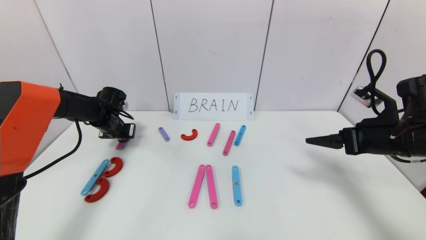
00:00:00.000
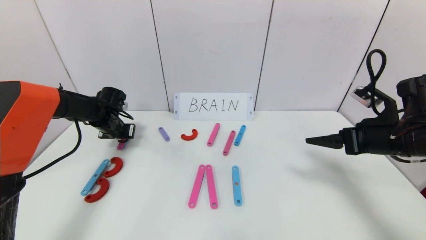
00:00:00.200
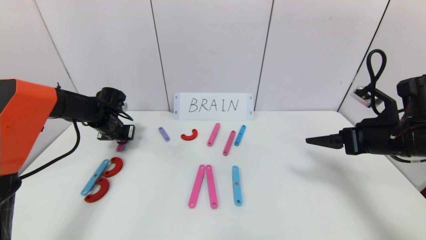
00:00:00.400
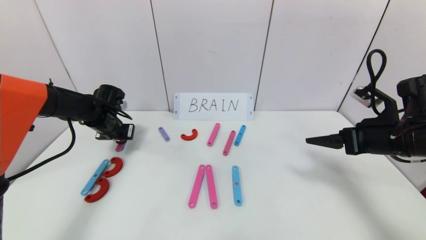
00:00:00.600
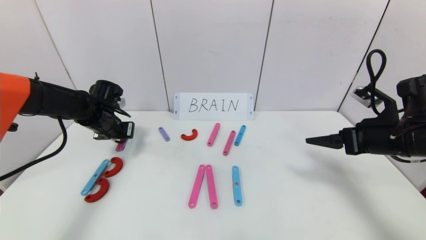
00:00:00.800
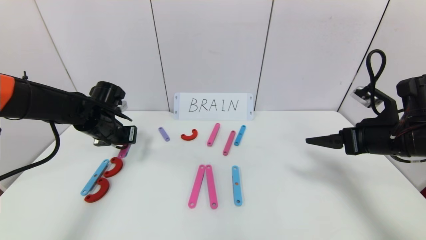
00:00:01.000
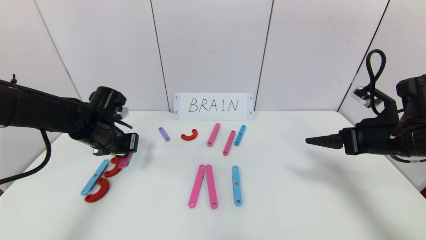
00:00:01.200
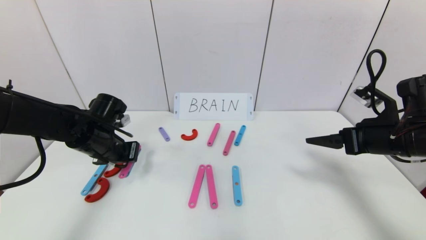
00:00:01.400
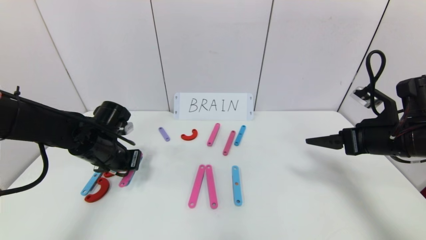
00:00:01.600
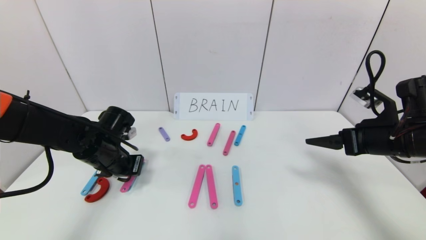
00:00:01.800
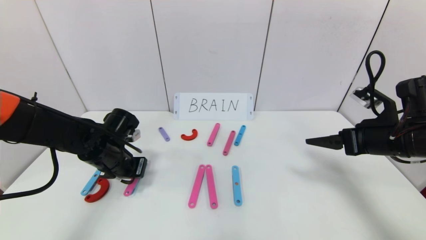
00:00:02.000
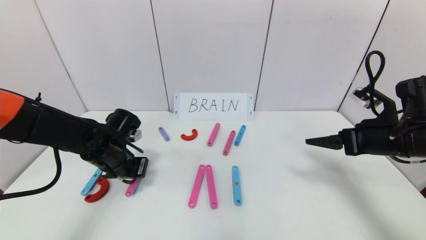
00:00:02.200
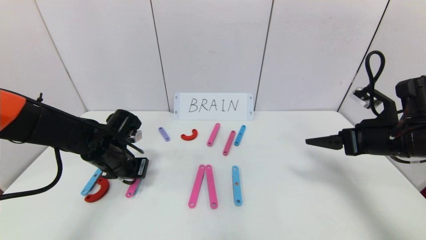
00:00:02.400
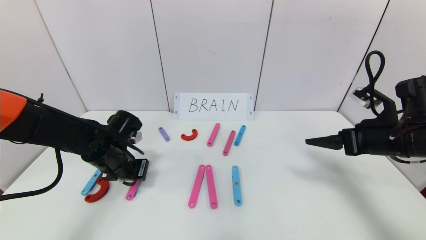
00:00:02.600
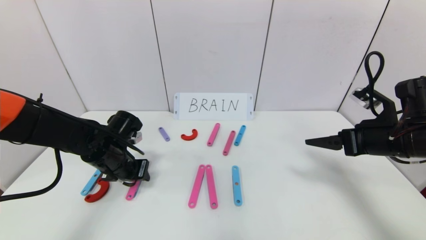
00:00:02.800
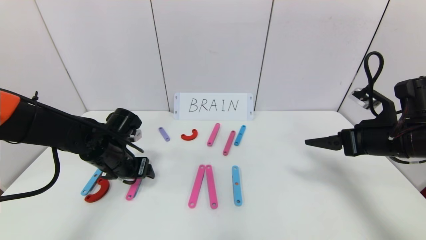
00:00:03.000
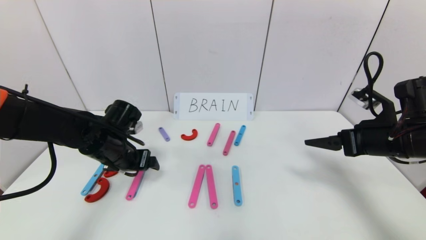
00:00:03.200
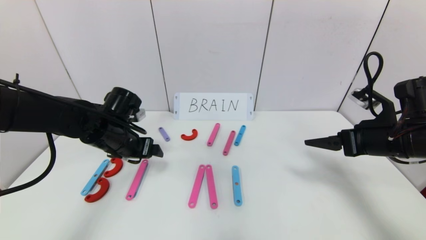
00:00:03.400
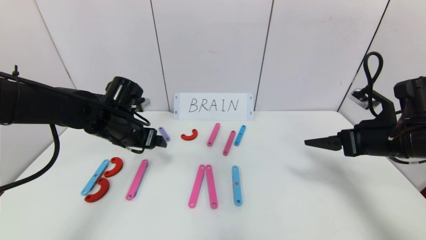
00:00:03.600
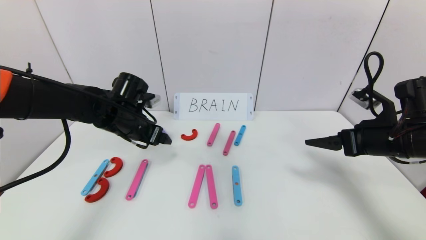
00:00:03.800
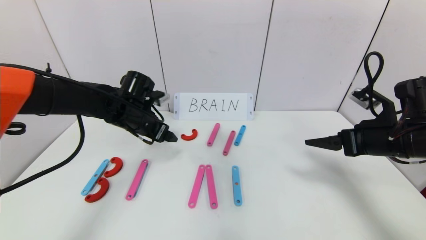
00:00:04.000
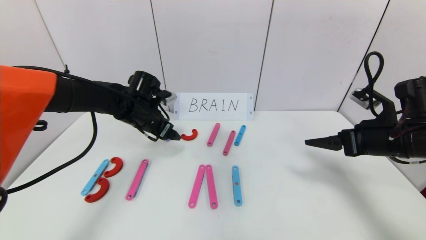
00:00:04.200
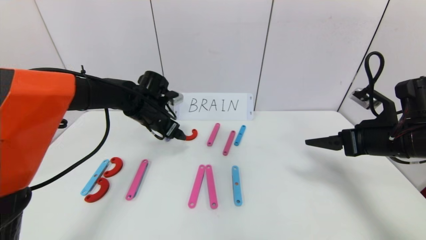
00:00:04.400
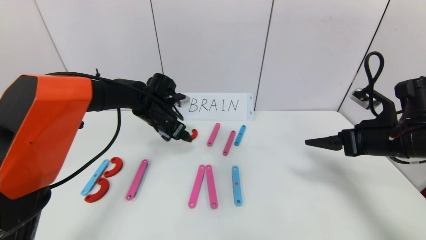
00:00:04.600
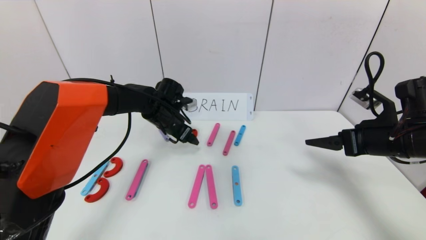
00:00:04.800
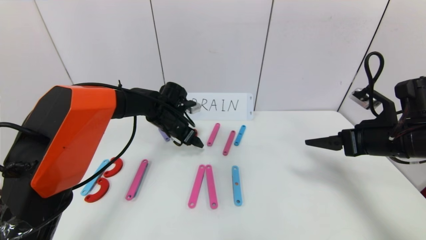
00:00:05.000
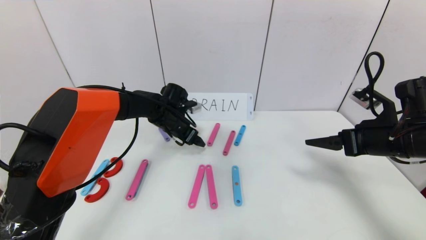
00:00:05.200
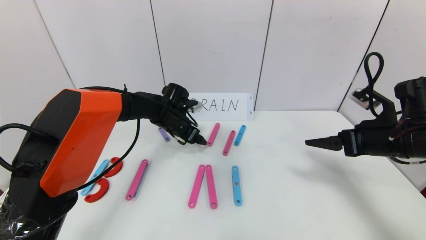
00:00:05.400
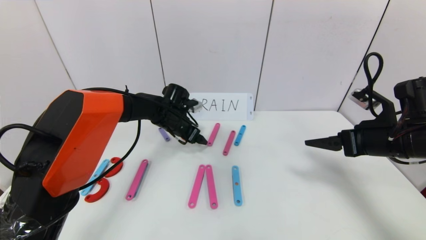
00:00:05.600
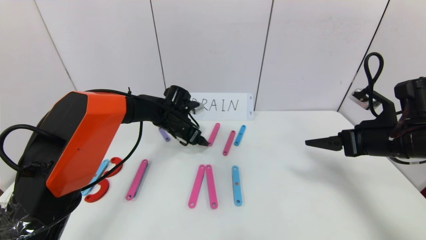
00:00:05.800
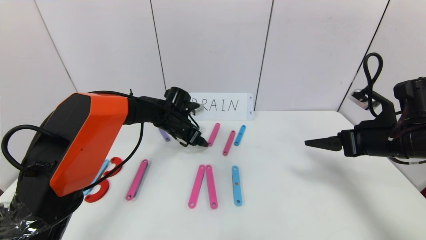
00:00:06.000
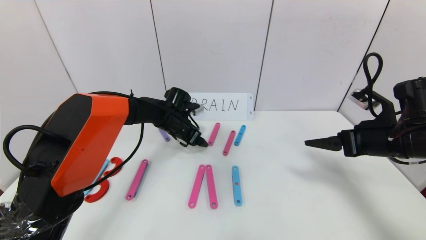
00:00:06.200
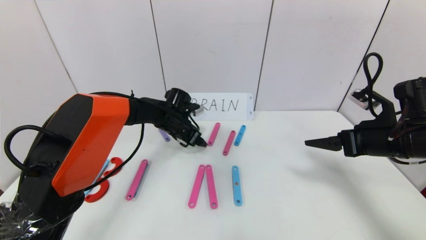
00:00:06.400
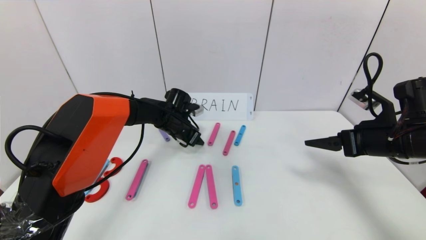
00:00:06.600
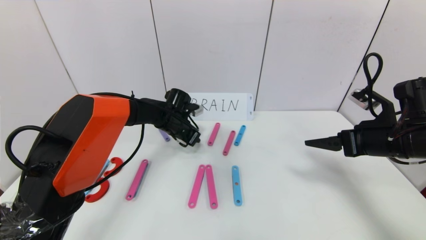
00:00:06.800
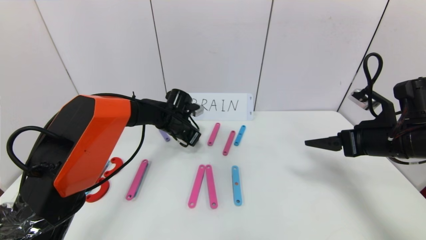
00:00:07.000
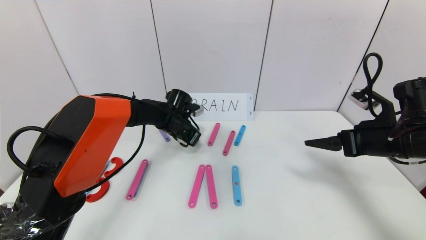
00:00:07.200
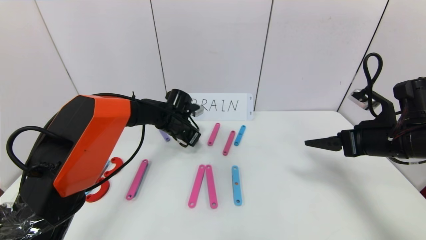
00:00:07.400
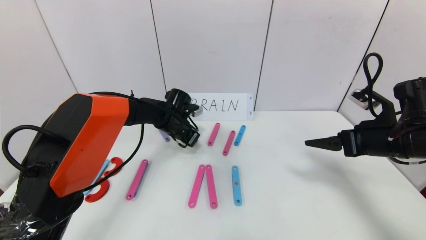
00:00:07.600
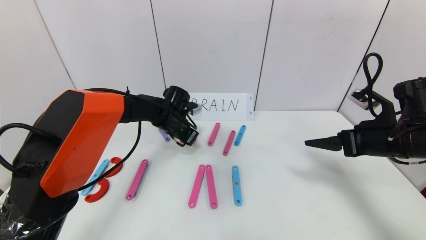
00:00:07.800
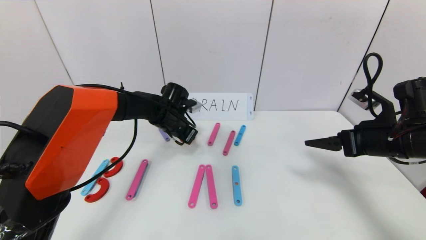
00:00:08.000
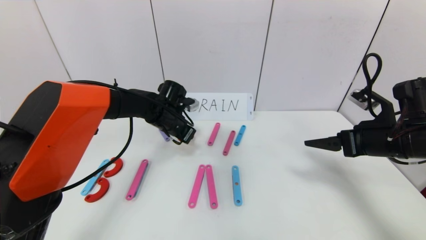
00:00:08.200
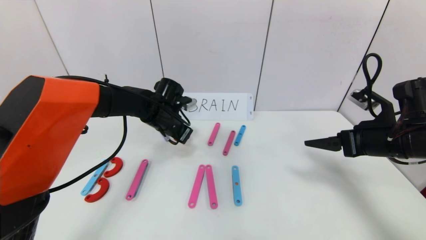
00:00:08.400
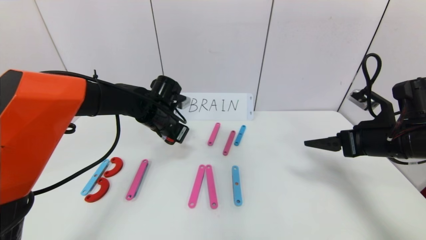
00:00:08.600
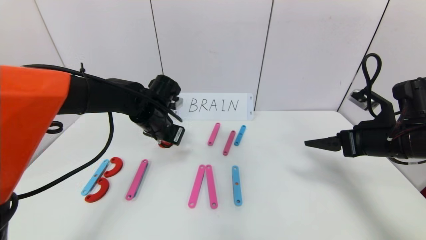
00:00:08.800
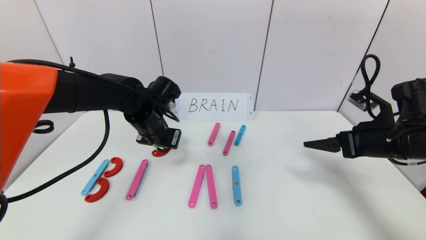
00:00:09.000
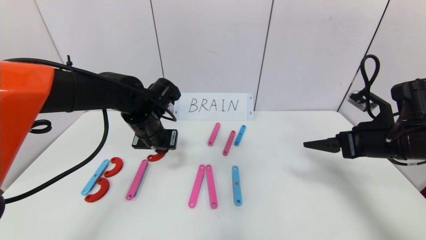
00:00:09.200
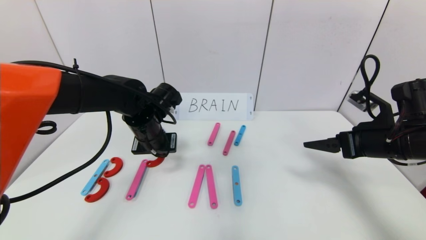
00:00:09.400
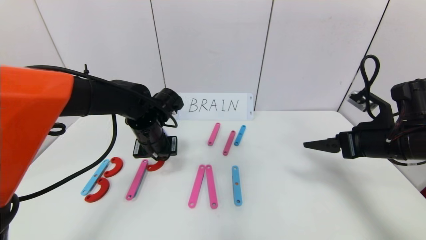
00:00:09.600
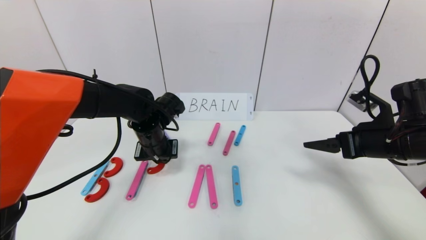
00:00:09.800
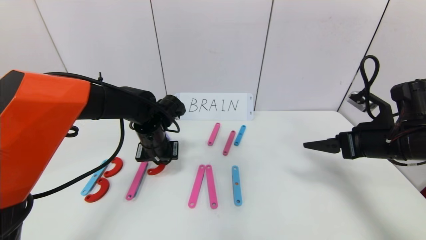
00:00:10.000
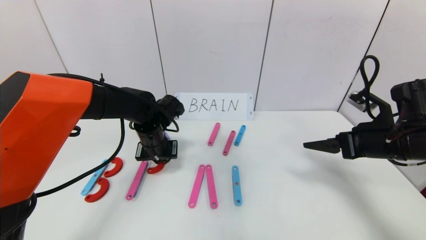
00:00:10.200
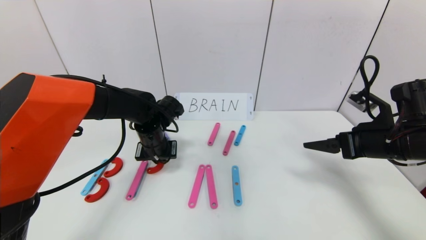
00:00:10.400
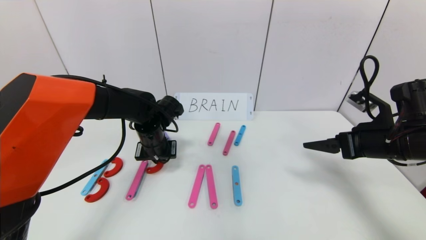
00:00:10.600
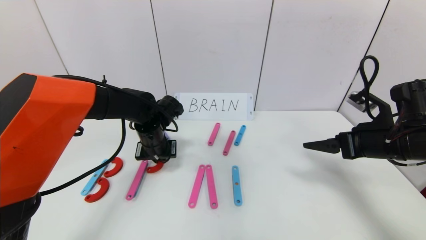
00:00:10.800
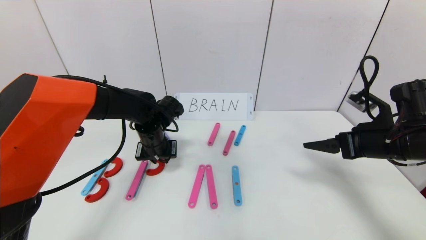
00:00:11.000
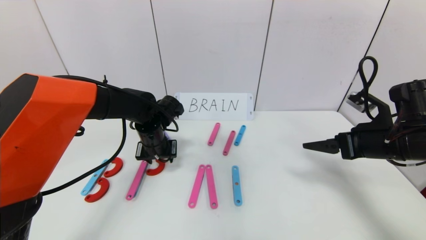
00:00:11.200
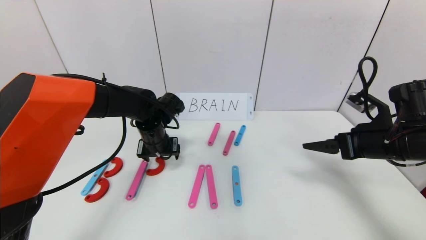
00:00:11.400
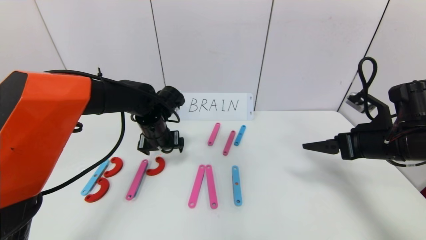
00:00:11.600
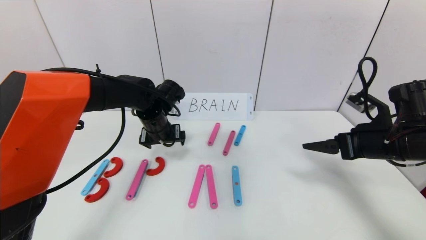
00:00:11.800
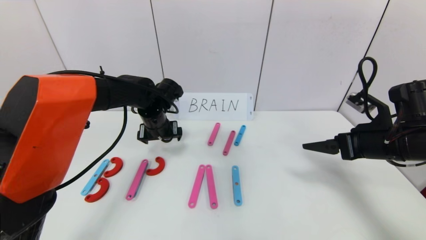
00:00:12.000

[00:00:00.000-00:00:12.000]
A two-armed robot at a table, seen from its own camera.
Task of the whole recording: rearrange the word baai as brain.
00:00:00.000 to 00:00:01.600: The left gripper heads backward and to the right, covering roughly 15 cm.
00:00:01.600 to 00:00:03.000: The left gripper opens.
00:00:03.000 to 00:00:04.400: The left gripper is displaced forward, to the right and upward by roughly 15 cm.
00:00:04.400 to 00:00:06.000: The left gripper travels downward and to the right by roughly 10 cm.
00:00:06.000 to 00:00:07.600: The left gripper closes up.
00:00:07.600 to 00:00:09.000: The left gripper heads backward and upward, covering approximately 10 cm.
00:00:09.000 to 00:00:10.400: There are only small adjustments of the grippers.
00:00:10.400 to 00:00:12.000: The left gripper opens its fingers.

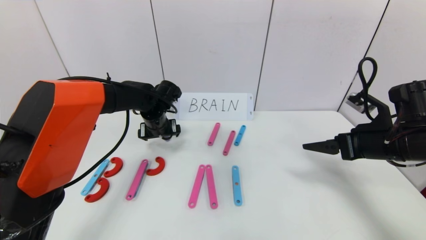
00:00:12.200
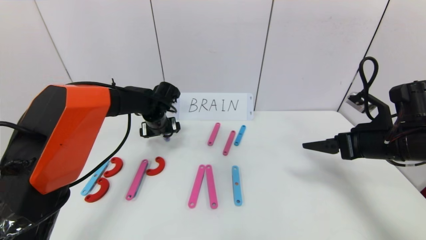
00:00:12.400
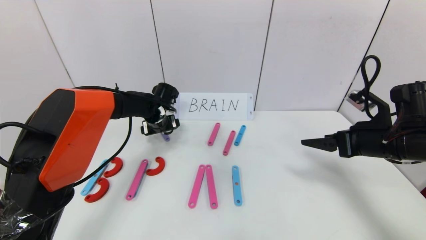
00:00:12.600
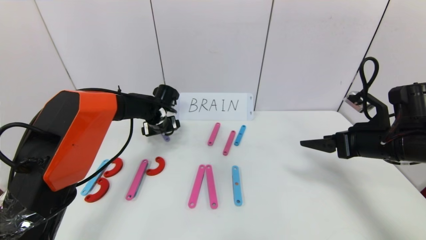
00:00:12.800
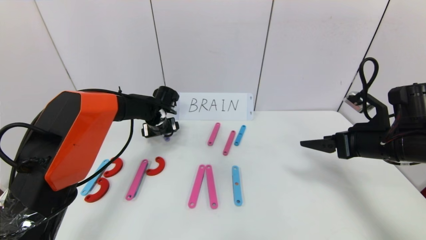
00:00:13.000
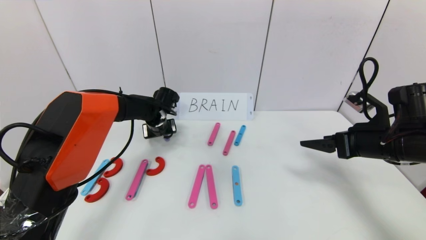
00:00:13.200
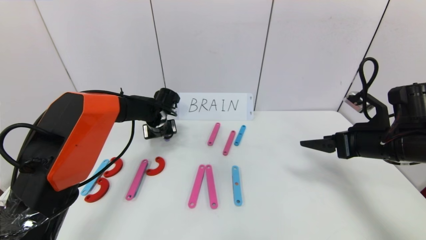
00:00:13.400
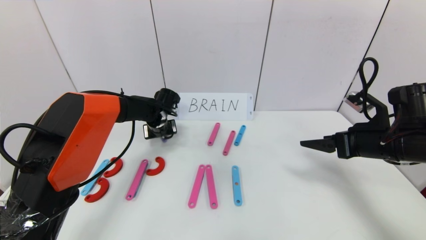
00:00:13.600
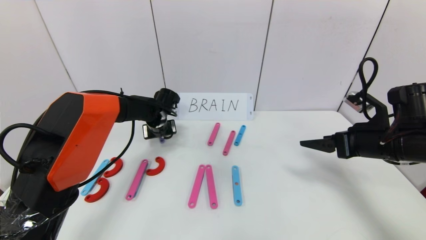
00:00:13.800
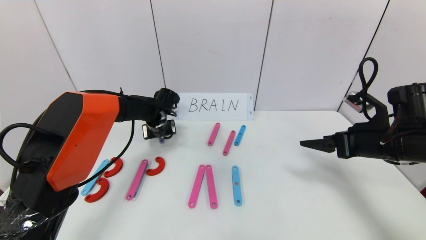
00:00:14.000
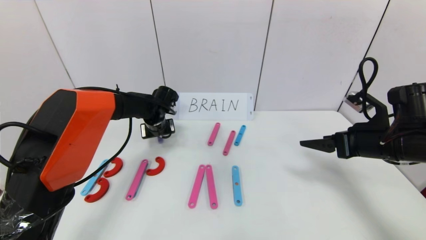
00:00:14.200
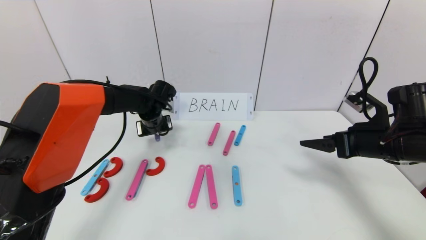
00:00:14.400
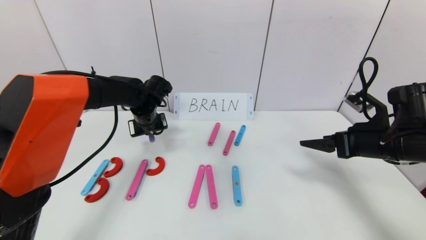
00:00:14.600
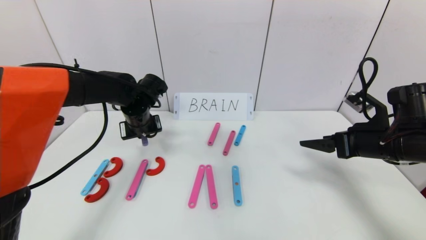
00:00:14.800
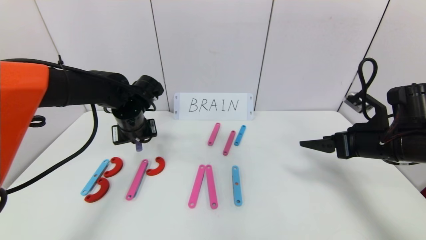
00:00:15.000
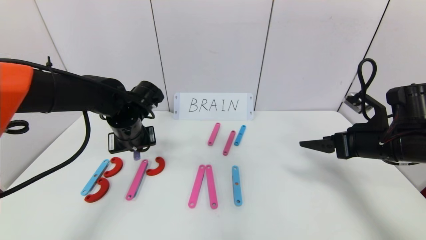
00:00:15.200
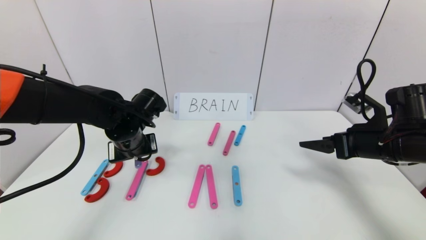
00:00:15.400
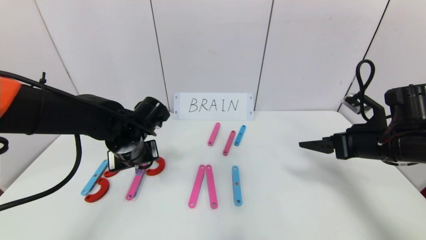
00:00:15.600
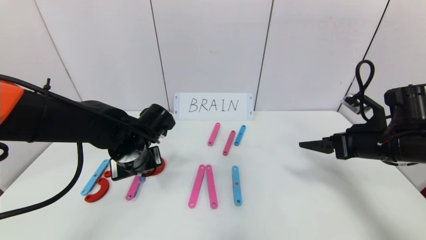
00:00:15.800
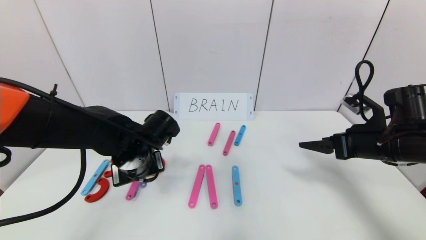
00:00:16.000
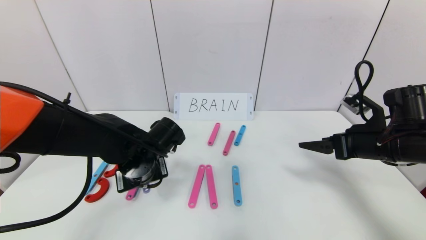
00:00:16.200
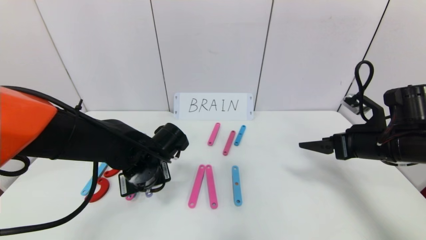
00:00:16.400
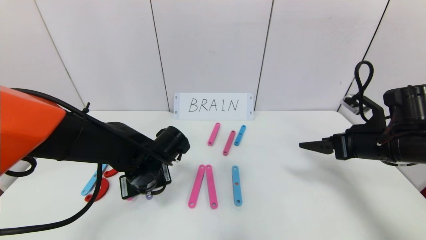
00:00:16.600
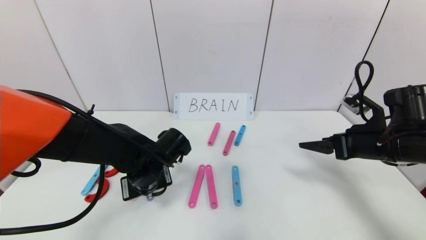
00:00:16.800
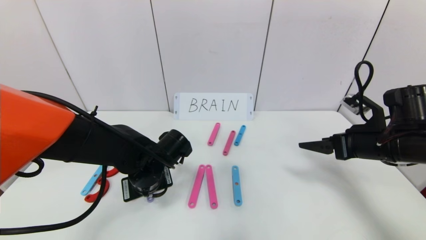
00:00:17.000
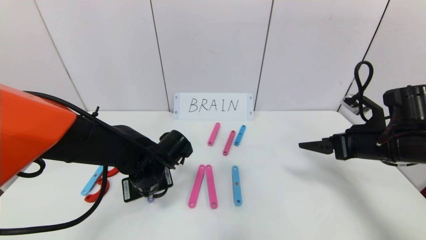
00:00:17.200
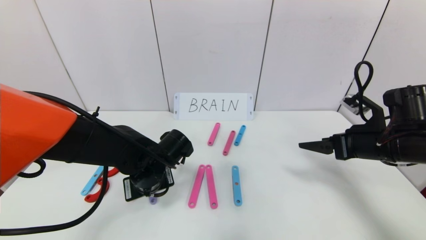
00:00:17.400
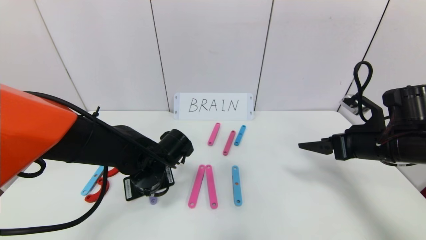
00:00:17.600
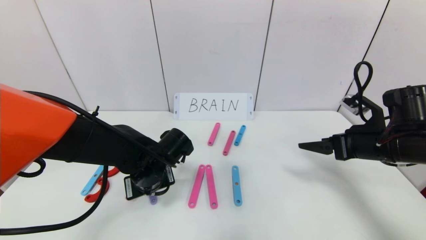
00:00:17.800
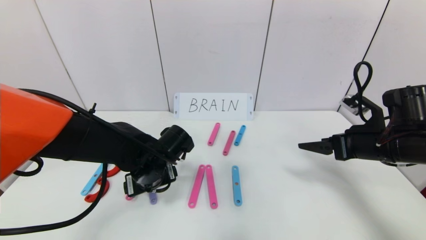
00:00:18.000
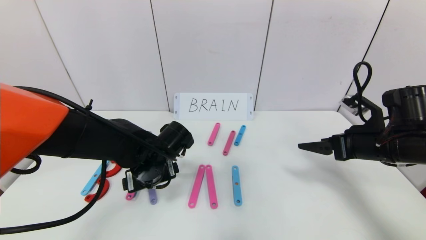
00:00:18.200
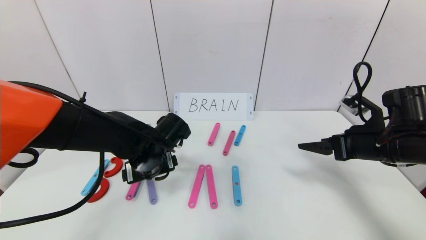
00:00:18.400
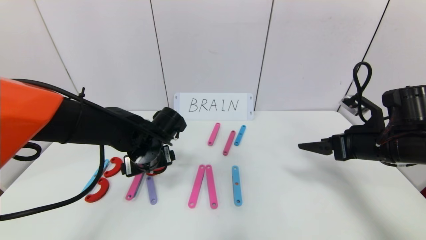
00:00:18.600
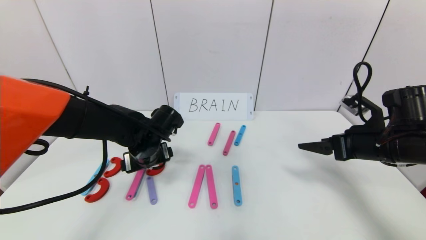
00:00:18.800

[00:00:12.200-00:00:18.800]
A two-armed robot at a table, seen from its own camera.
Task of the whole recording: rearrange the word baai as brain.
00:00:12.200 to 00:00:13.800: The left gripper ends up some 5 cm from where it was, and closes its fingers.
00:00:13.800 to 00:00:15.400: The left gripper is displaced backward and upward by about 15 cm.
00:00:15.400 to 00:00:17.200: The left gripper moves downward, approximately 5 cm.
00:00:17.200 to 00:00:18.800: The left gripper changes place by some 5 cm, and opens up.
